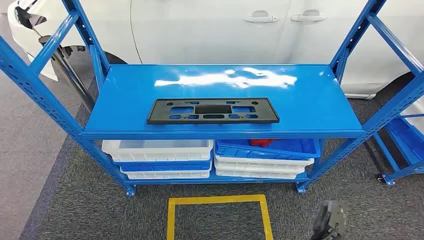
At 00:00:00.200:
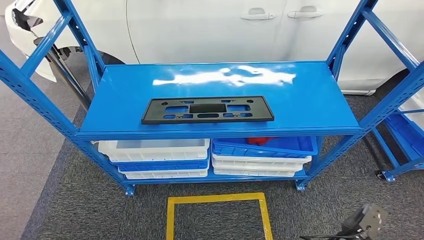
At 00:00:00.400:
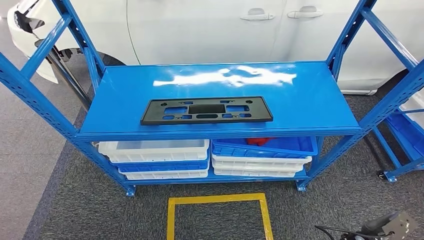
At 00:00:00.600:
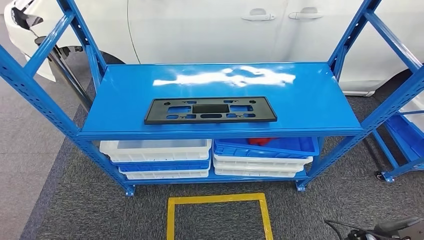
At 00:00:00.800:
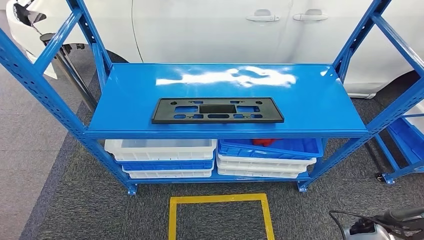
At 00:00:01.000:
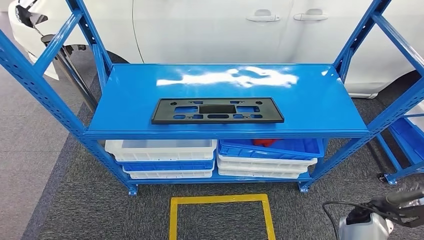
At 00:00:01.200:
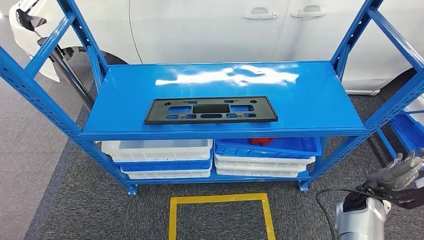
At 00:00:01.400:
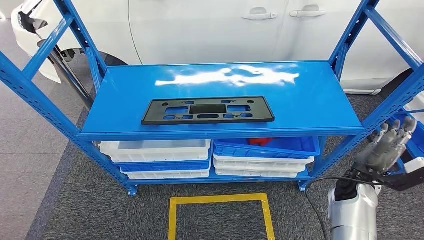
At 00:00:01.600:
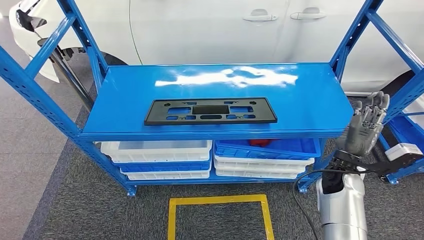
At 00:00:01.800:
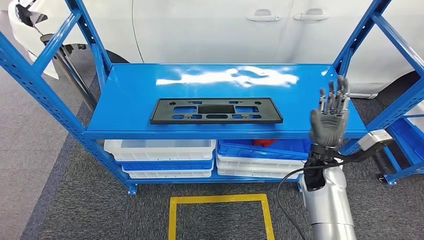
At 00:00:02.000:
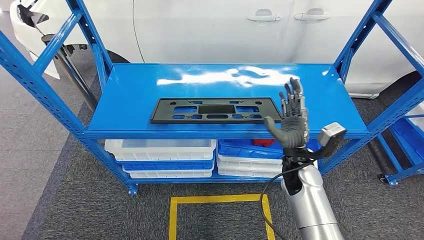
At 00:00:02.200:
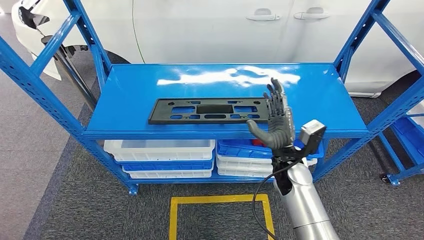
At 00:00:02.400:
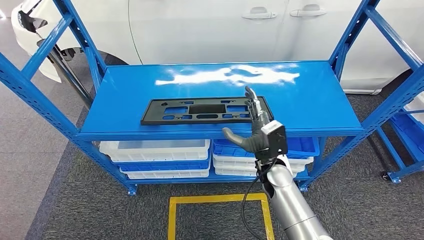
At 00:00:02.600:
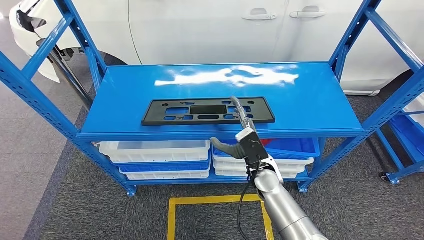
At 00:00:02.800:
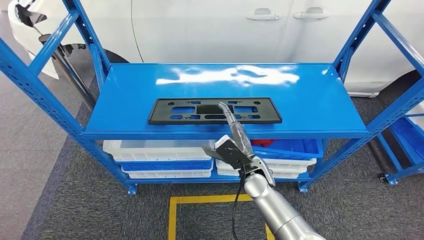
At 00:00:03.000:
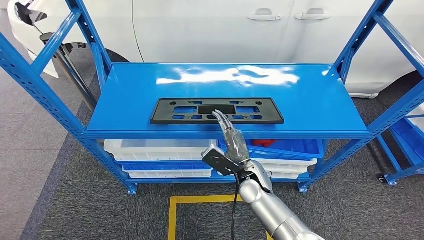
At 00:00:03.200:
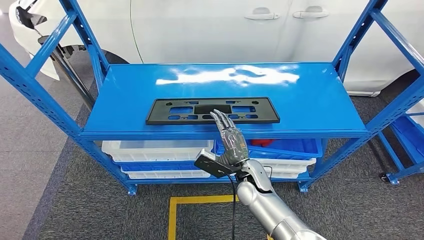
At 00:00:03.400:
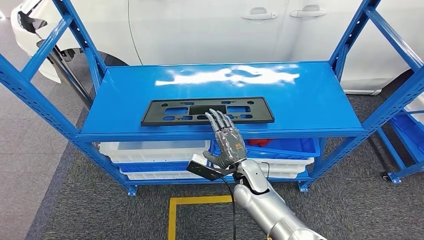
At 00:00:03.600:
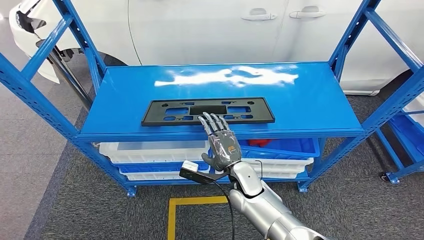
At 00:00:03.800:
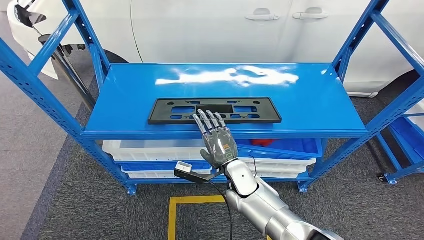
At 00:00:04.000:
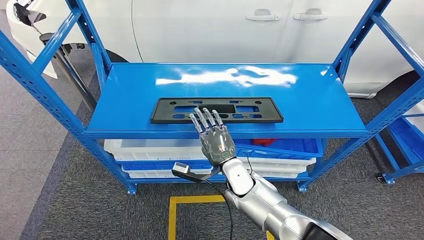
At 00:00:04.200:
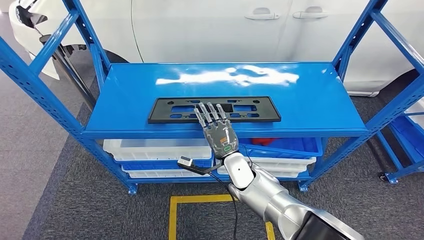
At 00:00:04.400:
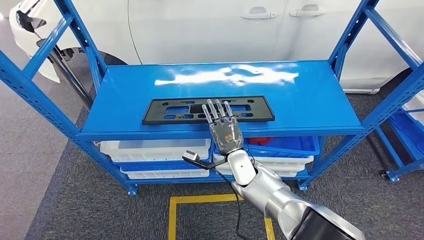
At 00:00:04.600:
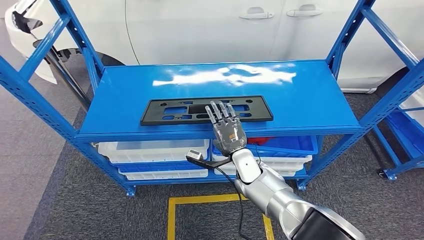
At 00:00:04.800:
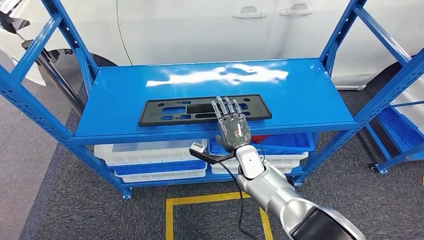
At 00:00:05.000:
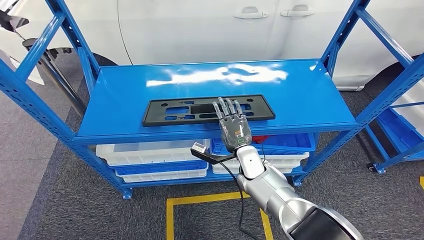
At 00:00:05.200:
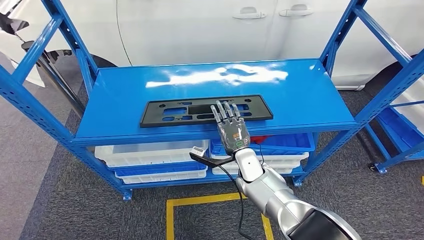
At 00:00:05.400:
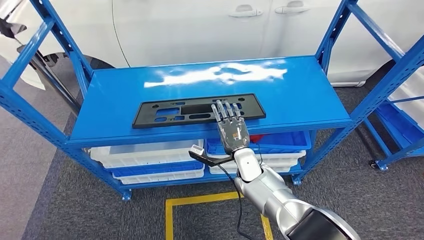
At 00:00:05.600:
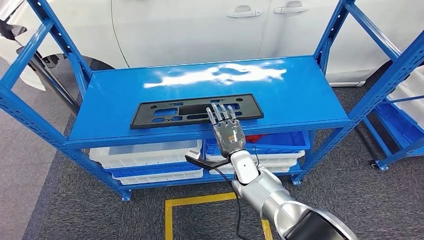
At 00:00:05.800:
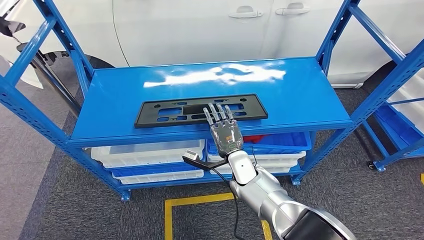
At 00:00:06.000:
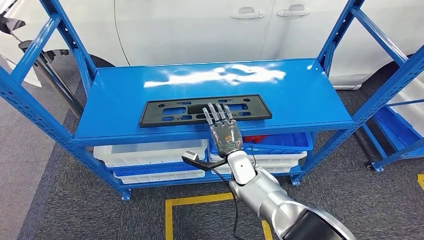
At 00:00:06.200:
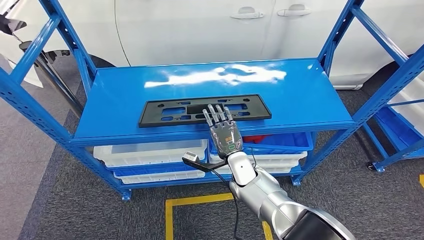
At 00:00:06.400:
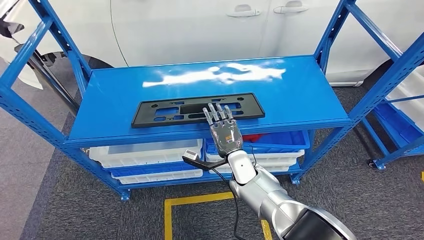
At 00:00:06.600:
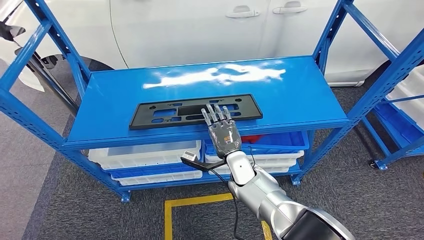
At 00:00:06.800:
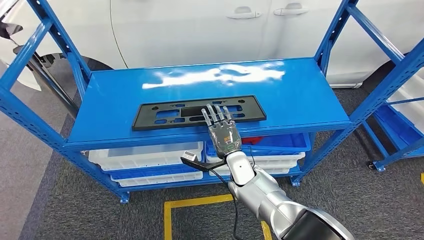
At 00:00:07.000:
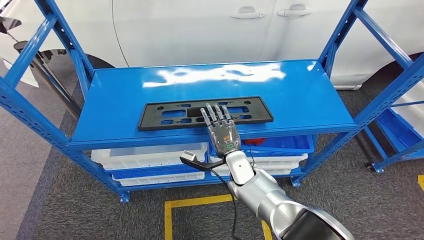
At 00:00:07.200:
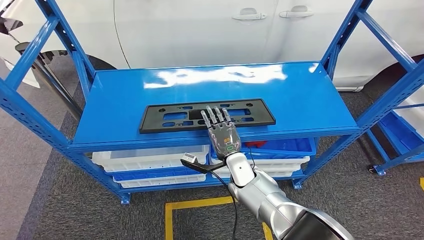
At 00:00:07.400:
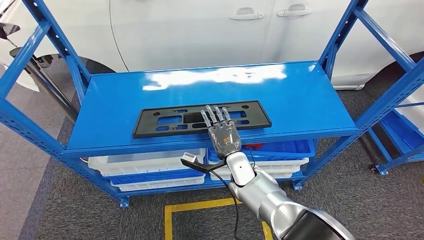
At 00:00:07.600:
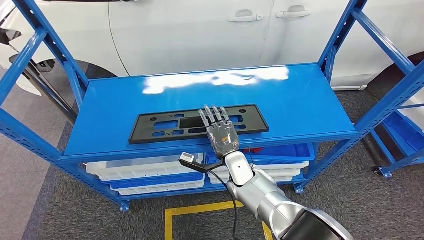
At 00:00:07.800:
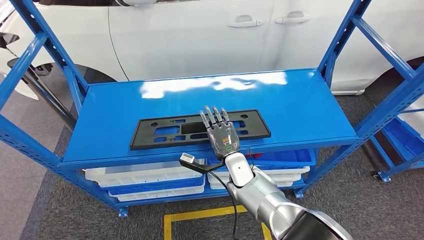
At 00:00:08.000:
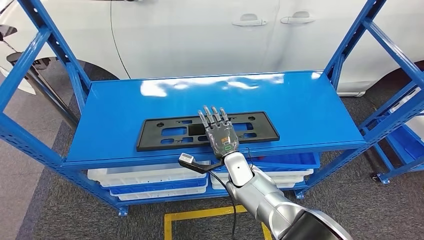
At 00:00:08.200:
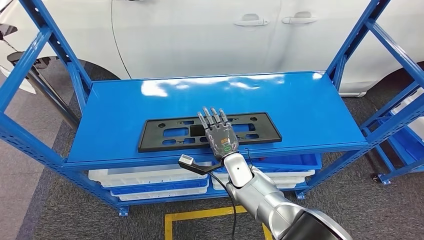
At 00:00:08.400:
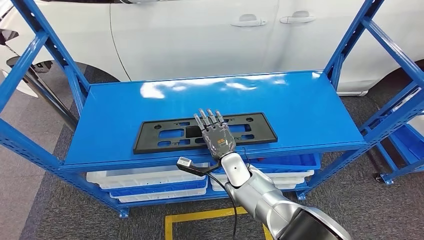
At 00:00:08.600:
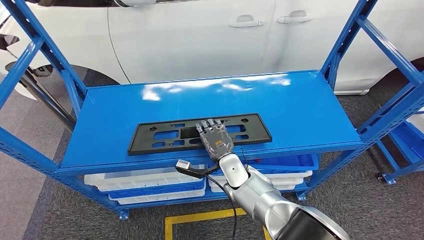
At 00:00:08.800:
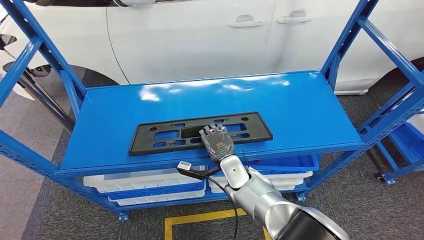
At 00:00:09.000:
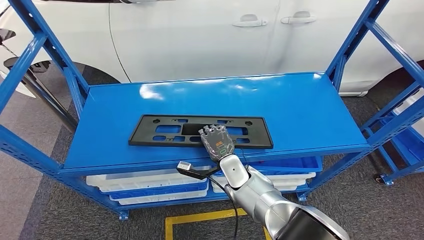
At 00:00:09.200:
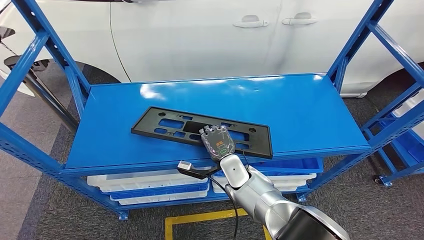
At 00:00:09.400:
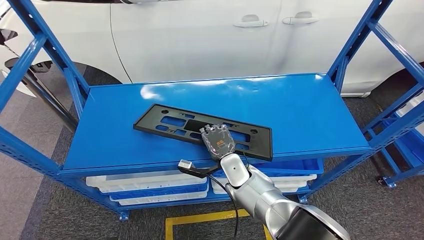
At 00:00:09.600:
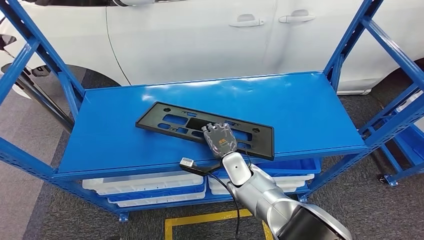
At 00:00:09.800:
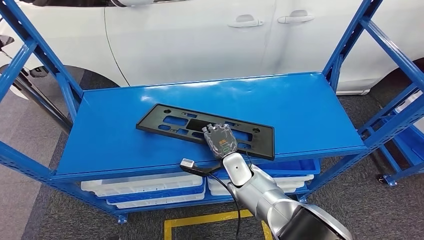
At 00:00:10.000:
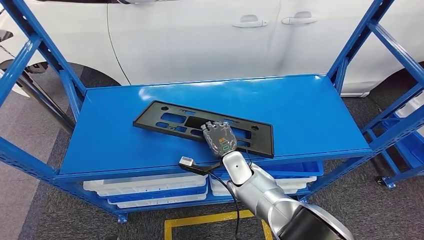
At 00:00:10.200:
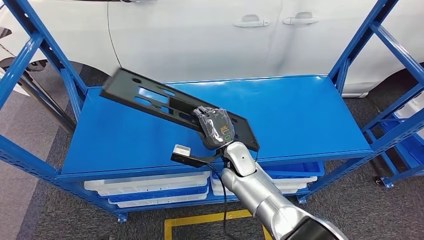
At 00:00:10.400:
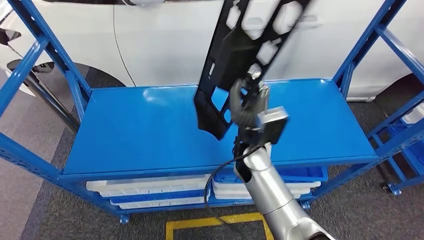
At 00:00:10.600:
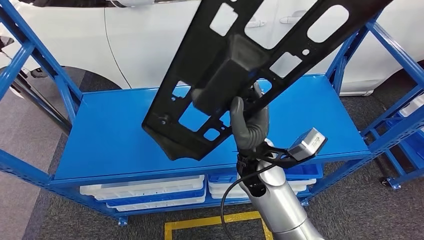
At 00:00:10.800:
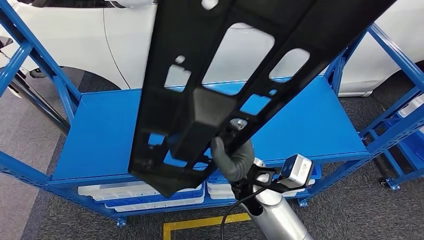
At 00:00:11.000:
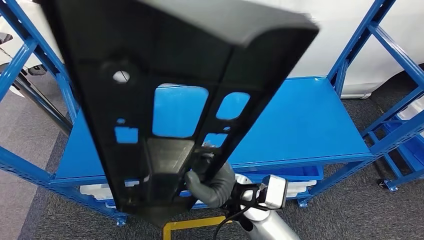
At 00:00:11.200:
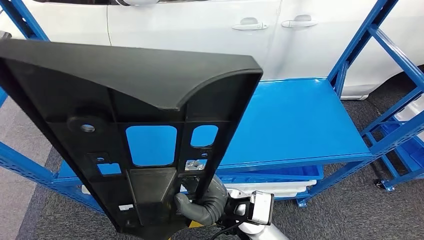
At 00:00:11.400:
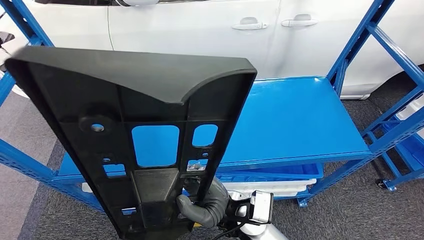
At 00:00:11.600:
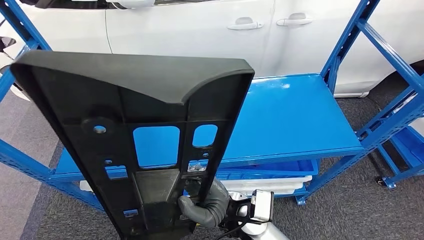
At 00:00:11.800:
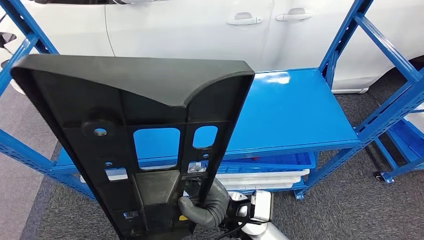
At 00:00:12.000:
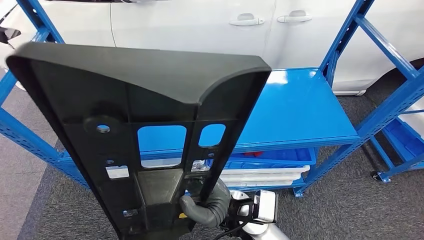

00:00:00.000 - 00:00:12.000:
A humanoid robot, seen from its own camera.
Step, 00:00:00.000 - 00:00:10.400: Pick up the large material from the shelf.

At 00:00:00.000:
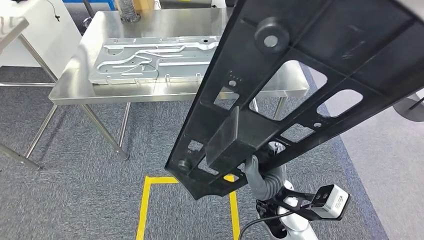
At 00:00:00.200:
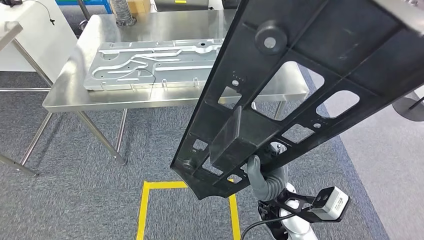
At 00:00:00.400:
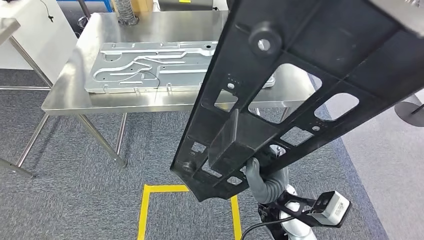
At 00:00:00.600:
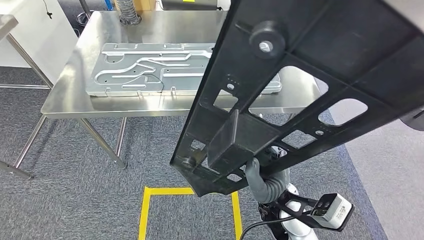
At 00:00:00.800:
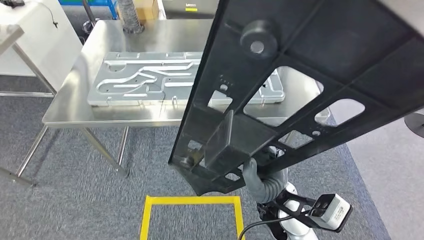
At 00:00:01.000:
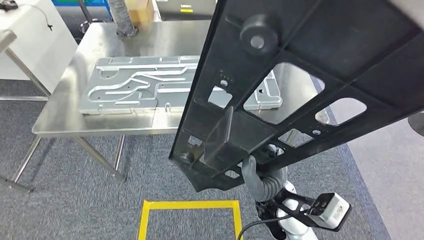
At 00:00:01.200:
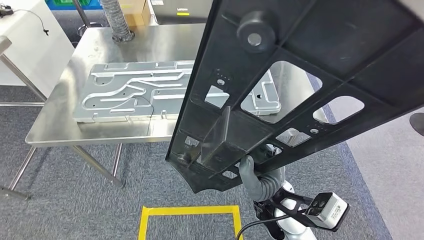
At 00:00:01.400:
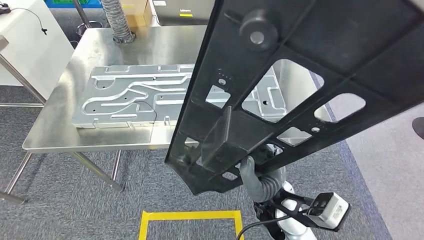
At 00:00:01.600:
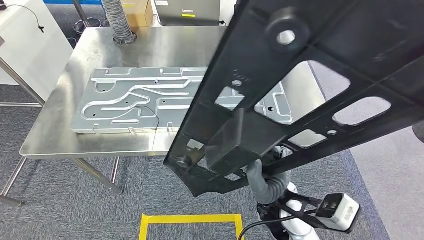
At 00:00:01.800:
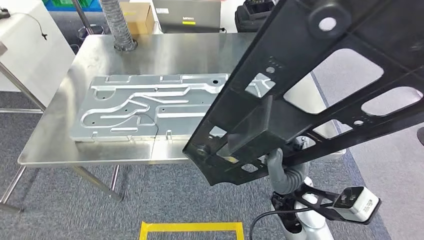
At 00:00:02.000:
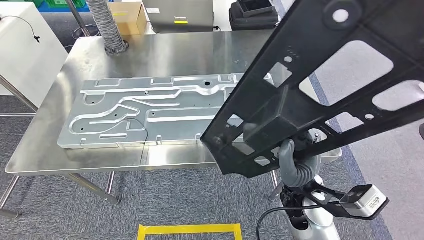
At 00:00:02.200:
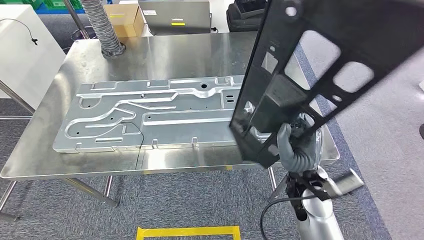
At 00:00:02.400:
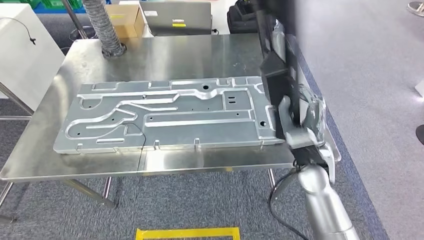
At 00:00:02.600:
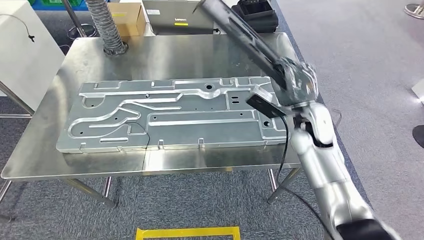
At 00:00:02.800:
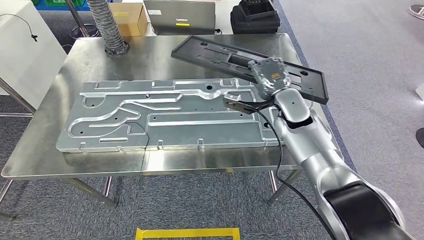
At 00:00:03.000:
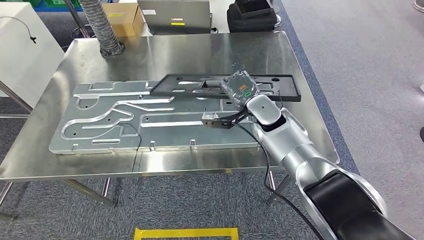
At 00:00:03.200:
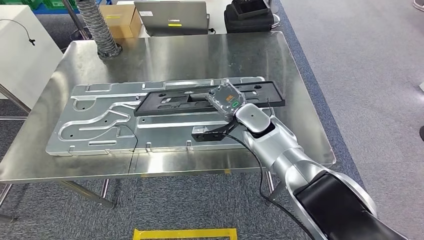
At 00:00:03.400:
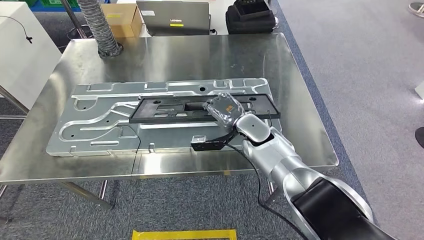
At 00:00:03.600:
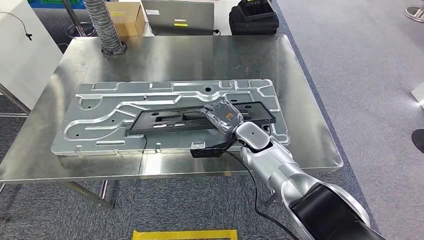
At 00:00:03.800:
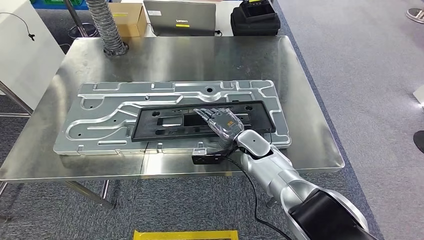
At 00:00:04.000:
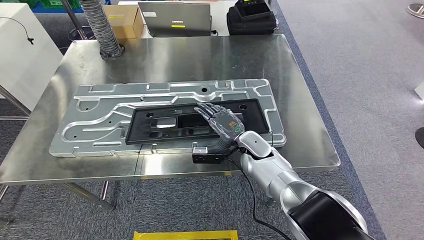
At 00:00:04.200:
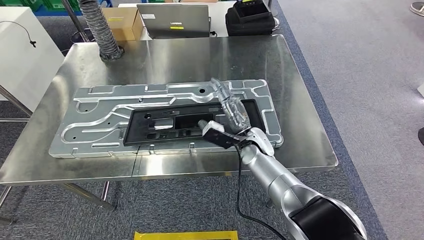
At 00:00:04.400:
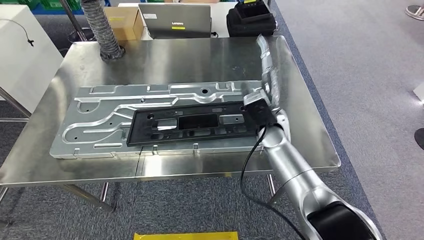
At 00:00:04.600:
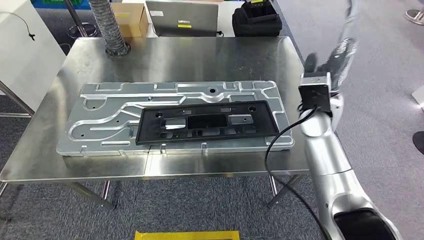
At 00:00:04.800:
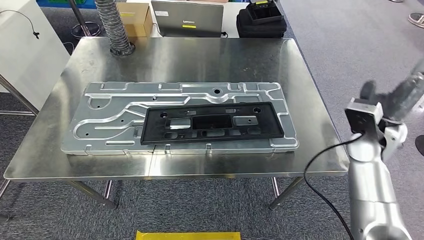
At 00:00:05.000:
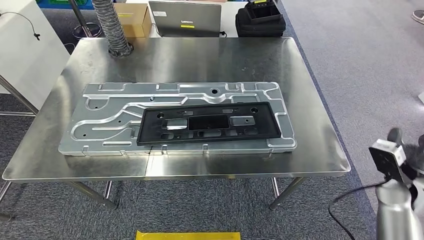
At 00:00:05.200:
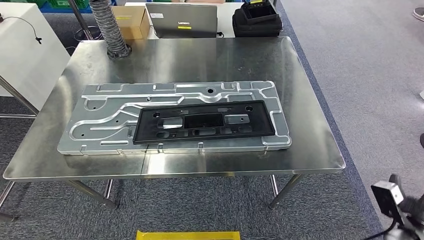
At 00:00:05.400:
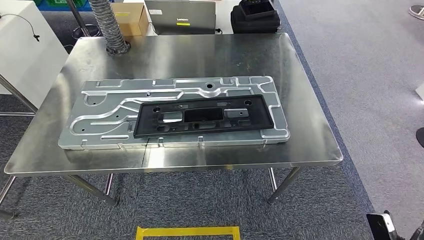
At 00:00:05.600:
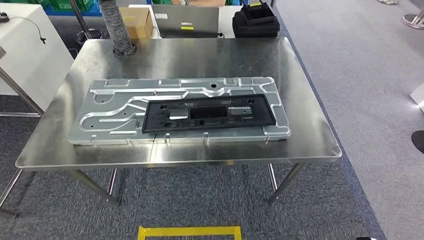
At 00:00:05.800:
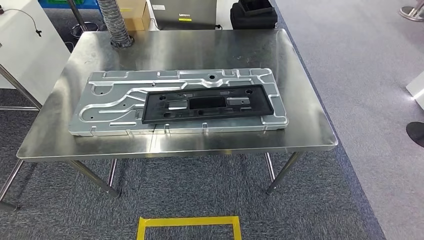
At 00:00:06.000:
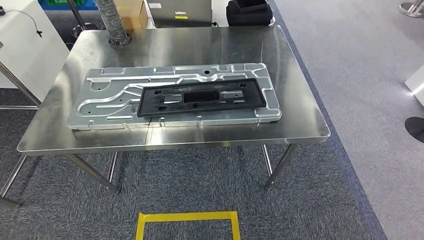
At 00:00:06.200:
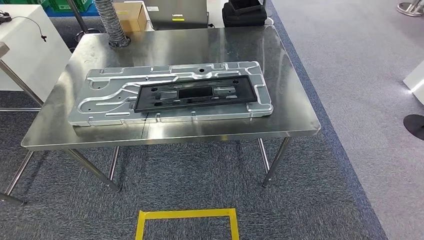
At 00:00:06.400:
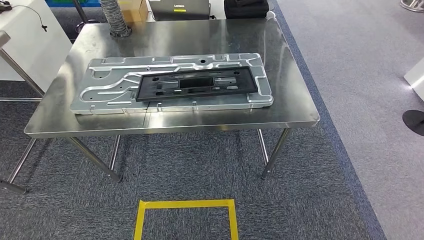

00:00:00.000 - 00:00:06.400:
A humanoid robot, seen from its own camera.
Step, 00:00:00.000 - 00:00:02.400: Move the large material to the front of the workbench.
Step, 00:00:02.600 - 00:00:05.200: Insert the large material into the corresponding hole on the workbench.
